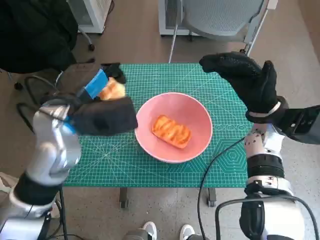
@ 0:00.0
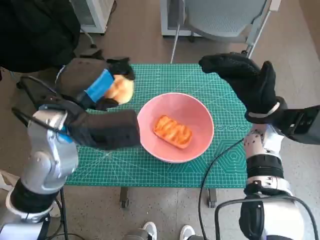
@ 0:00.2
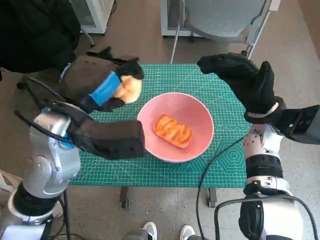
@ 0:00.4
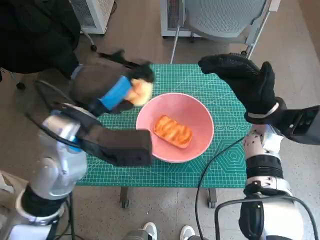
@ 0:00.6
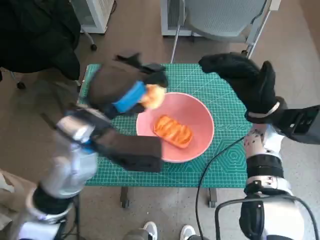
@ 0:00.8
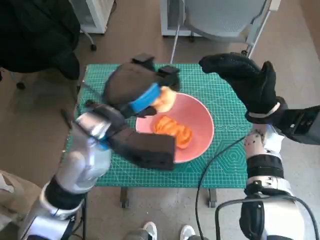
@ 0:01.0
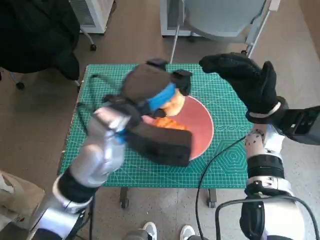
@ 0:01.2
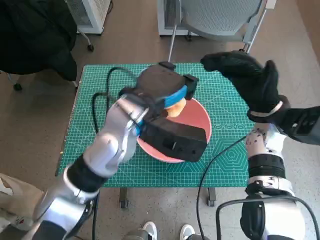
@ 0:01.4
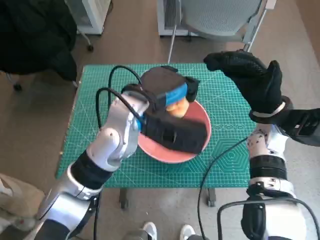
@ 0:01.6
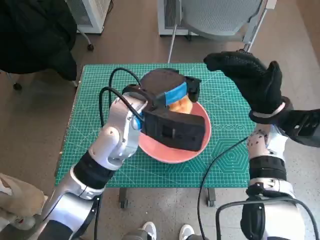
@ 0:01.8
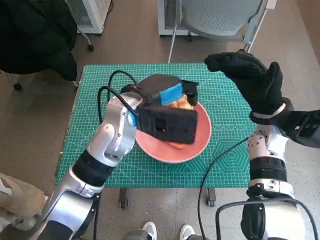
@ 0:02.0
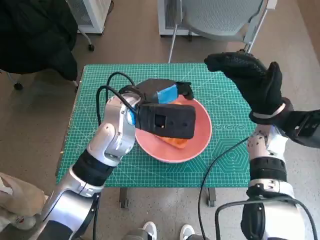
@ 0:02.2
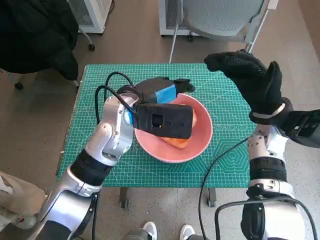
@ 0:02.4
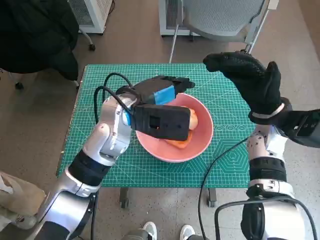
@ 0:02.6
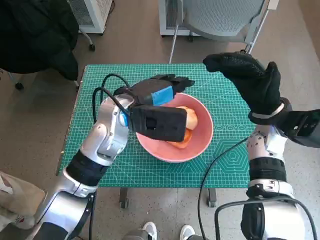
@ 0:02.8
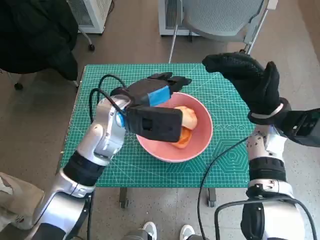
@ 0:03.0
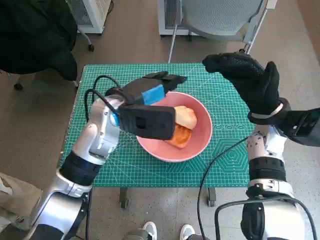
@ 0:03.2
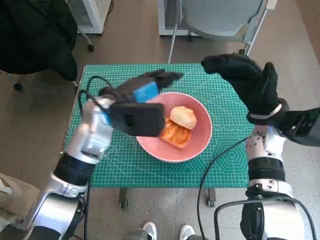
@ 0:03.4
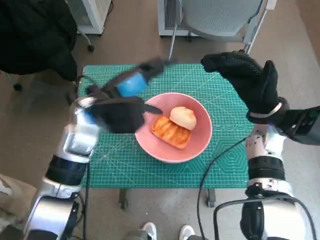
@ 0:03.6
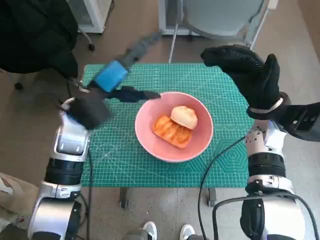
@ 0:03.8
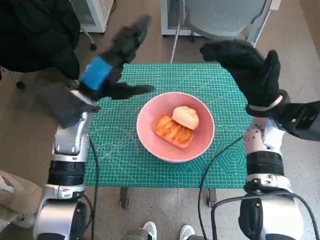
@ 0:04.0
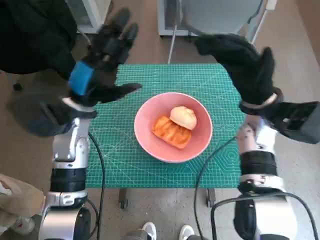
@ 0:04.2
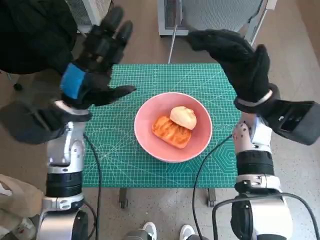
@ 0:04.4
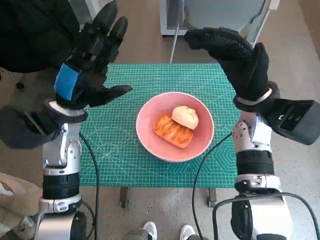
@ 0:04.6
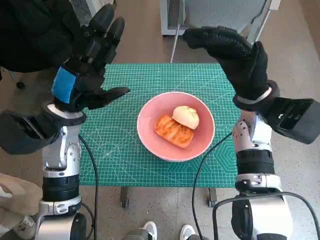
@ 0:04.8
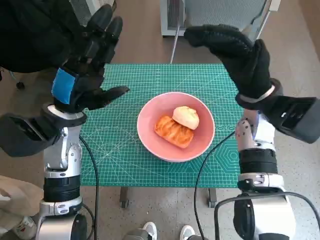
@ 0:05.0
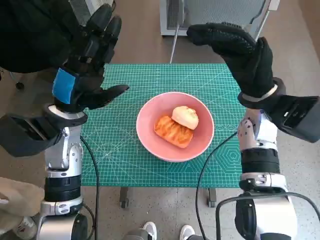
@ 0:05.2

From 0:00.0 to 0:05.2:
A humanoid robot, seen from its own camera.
Step, from 0:00.0 to 0:02.6: Place the round bread in pink bowl with left hand.
From 0:00.0 to 0:01.8: The left hand moves to the right, about 10 cm.
From 0:01.8 to 0:03.4: The left hand heads to the left, covering about 5 cm.
From 0:03.4 to 0:05.2: The left hand is displaced to the left by approximately 10 cm; the right hand moves roughly 5 cm.
